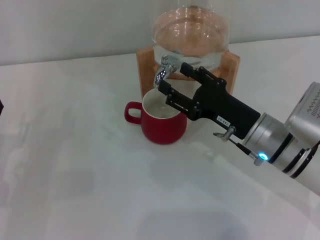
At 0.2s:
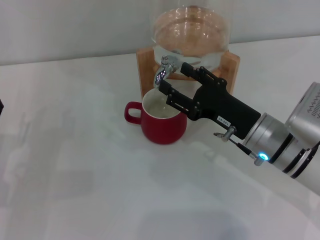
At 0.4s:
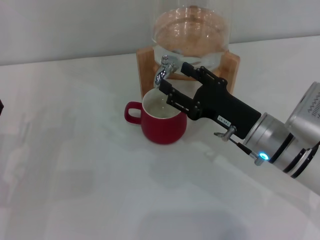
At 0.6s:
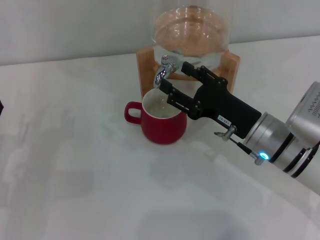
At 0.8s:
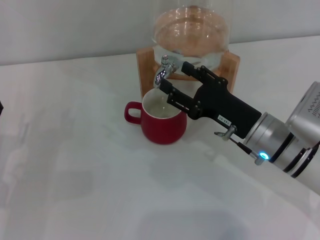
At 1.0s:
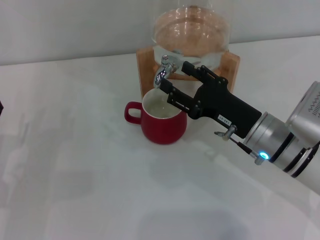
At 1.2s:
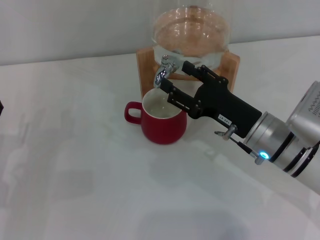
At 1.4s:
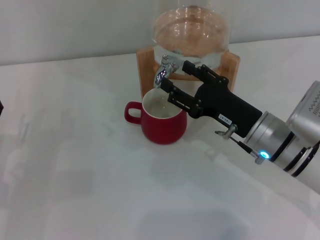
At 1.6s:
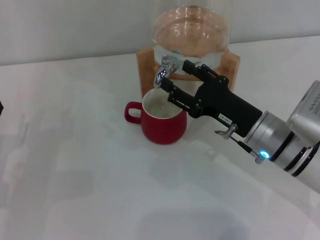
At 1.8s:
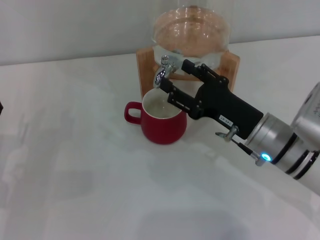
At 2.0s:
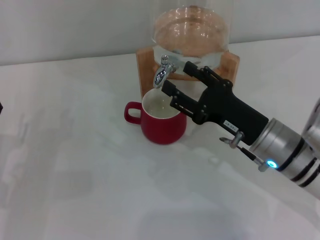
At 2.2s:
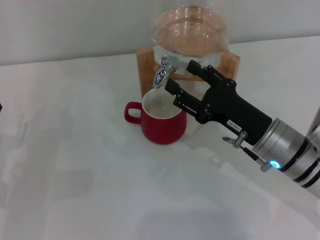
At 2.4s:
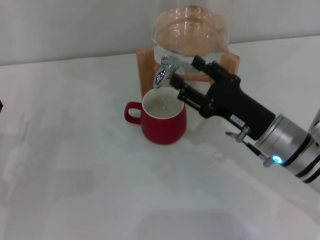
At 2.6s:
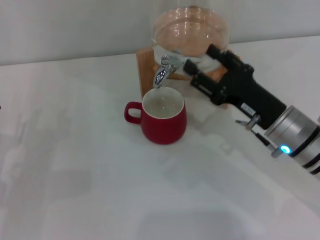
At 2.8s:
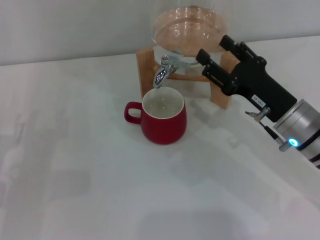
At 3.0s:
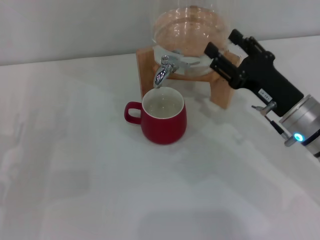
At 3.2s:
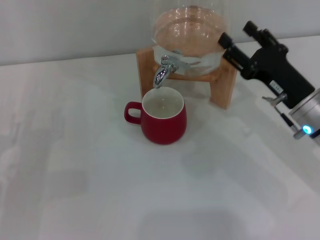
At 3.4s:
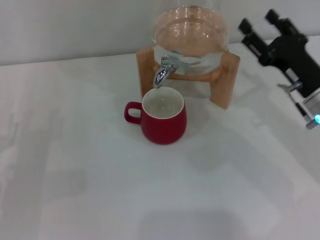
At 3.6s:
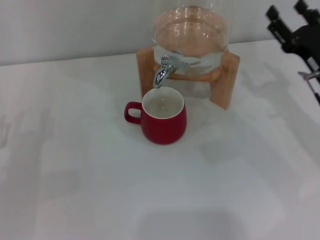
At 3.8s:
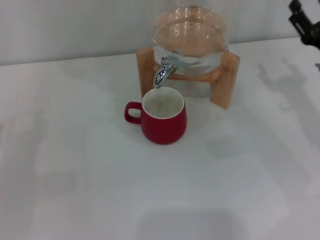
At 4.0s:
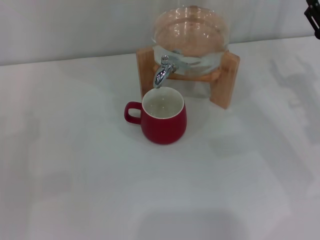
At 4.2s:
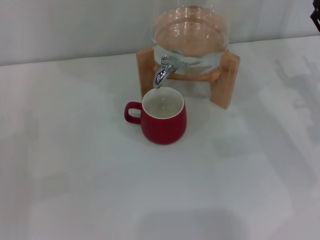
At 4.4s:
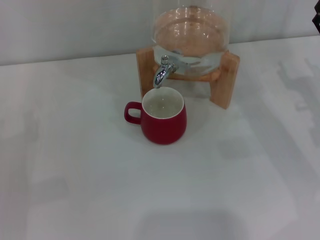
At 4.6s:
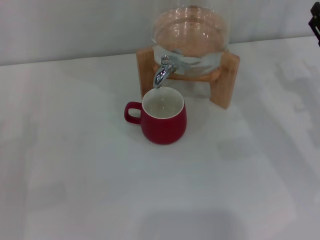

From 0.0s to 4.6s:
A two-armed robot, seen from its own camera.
Task of the whole recording: the left gripper pick up the red cup and place it horizontally under the faucet, the right gripper turn on the faucet to fill the cup, and then turn off the faucet.
From 0.0s to 1.6s: Both grippers stay about where they are.
From 1.6s to 3.0s: The grippers move only a little.
From 3.0s to 4.6s: The right gripper goes some 10 cm to the right.
